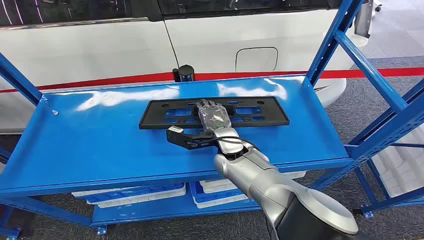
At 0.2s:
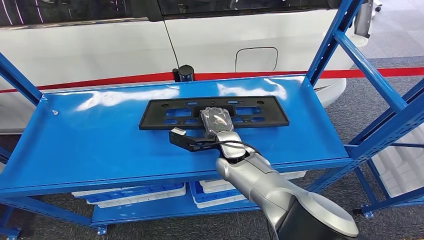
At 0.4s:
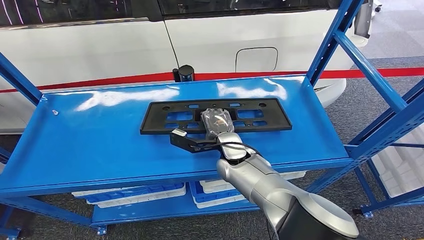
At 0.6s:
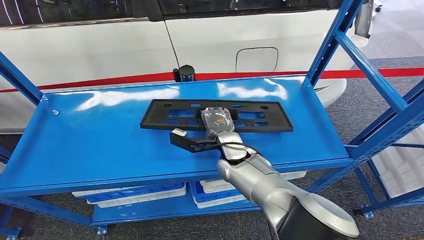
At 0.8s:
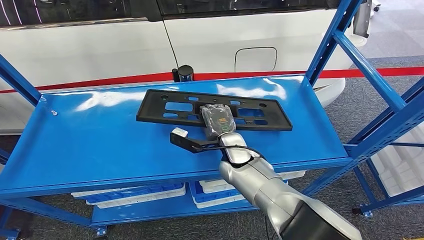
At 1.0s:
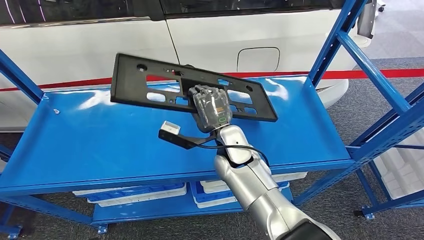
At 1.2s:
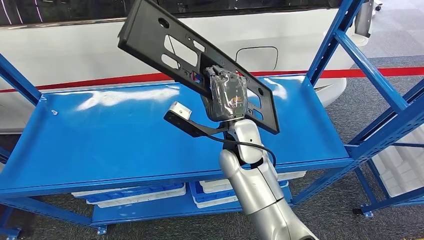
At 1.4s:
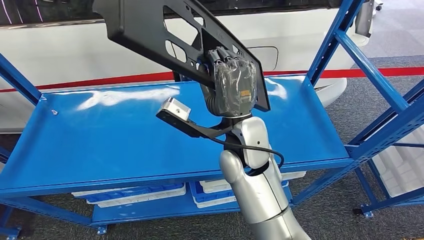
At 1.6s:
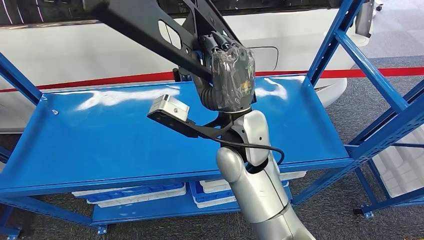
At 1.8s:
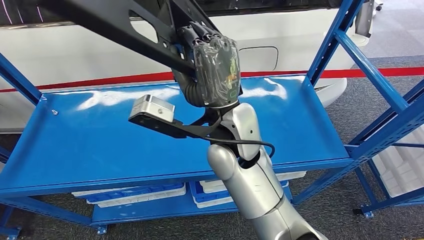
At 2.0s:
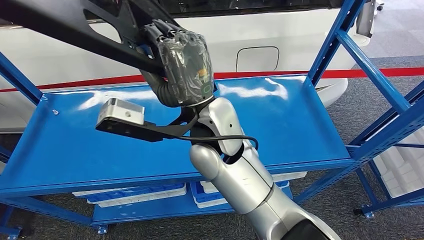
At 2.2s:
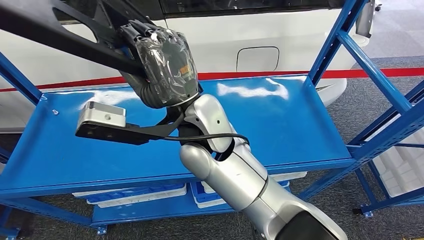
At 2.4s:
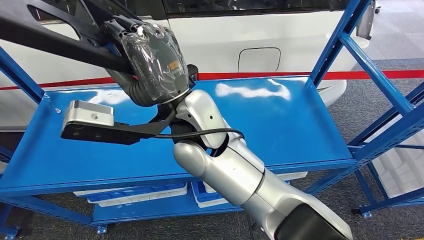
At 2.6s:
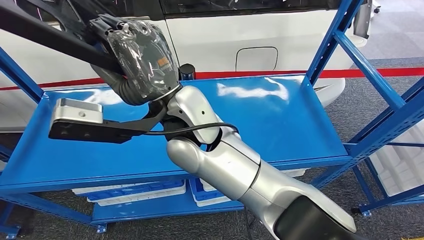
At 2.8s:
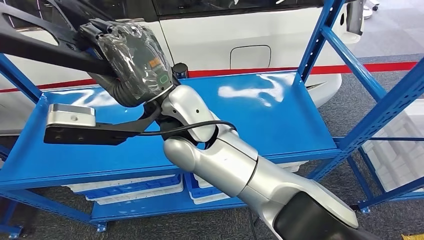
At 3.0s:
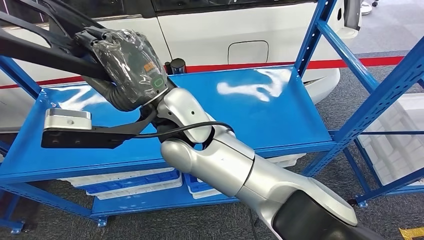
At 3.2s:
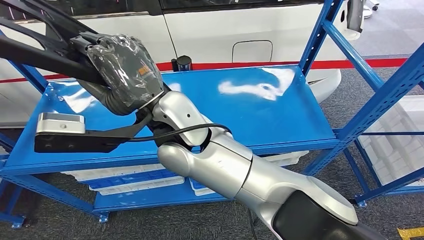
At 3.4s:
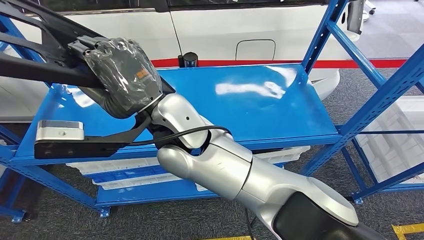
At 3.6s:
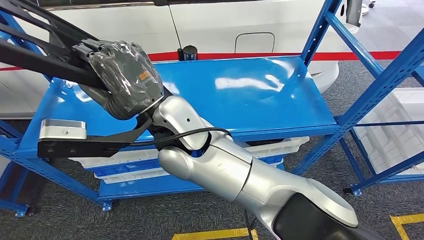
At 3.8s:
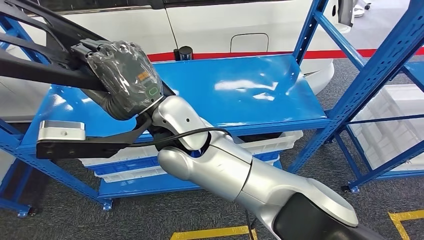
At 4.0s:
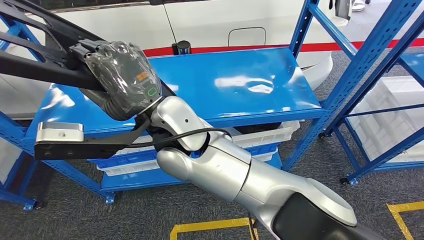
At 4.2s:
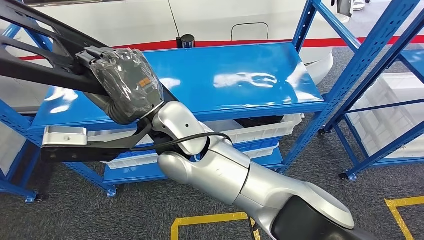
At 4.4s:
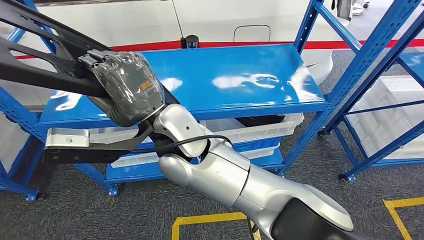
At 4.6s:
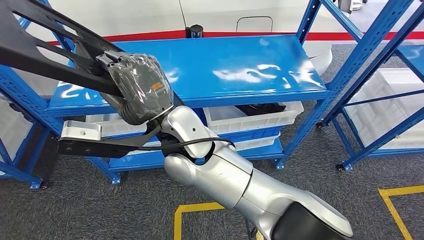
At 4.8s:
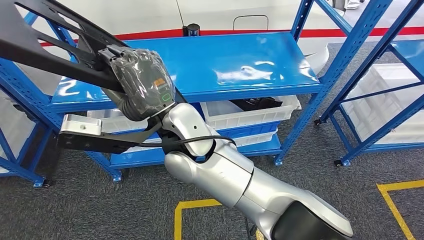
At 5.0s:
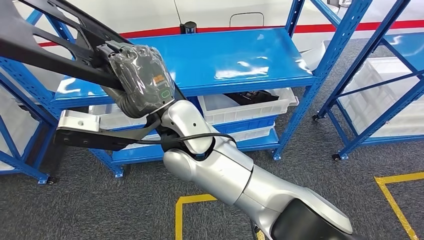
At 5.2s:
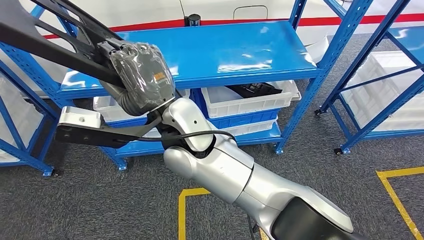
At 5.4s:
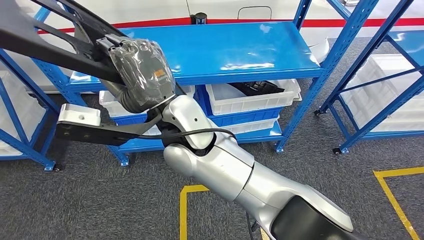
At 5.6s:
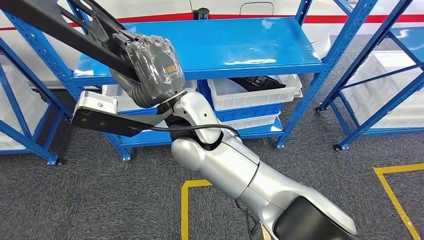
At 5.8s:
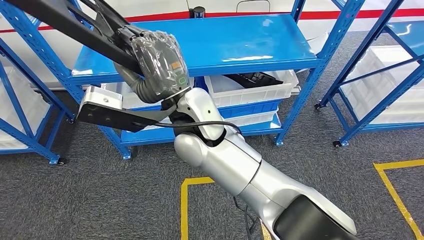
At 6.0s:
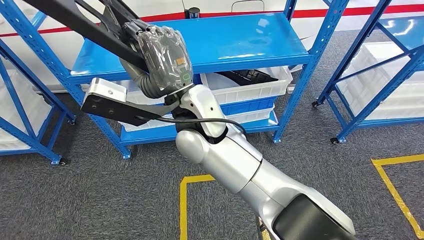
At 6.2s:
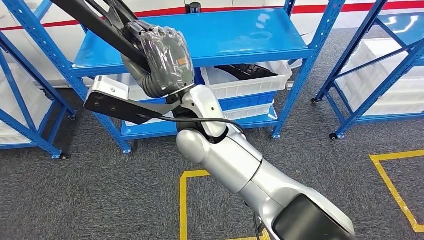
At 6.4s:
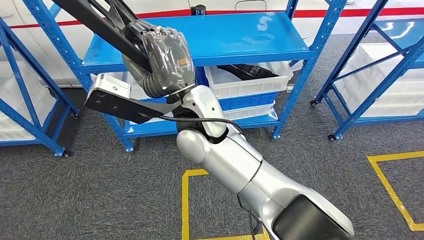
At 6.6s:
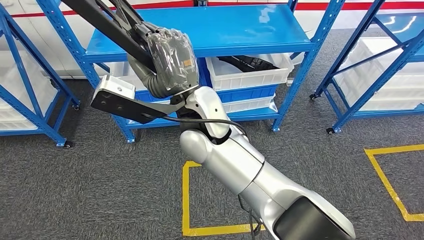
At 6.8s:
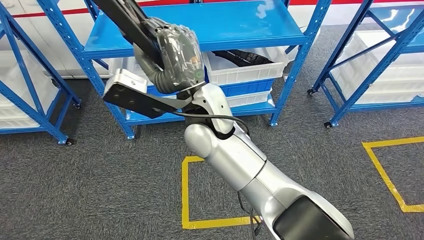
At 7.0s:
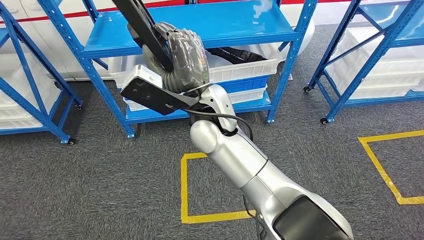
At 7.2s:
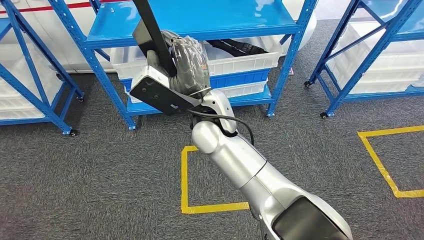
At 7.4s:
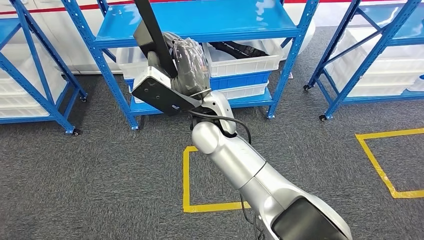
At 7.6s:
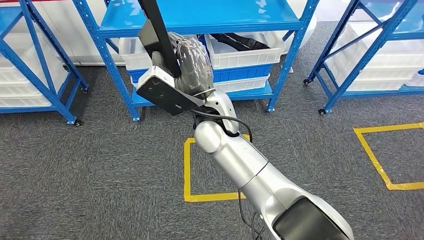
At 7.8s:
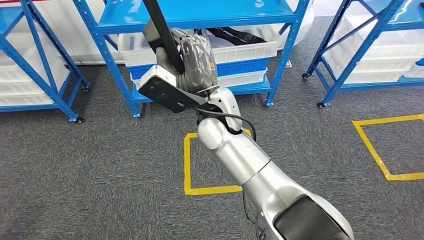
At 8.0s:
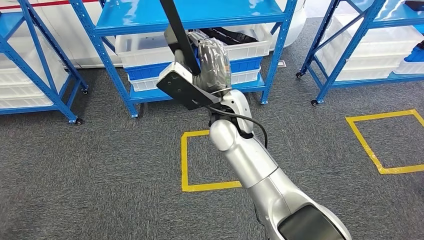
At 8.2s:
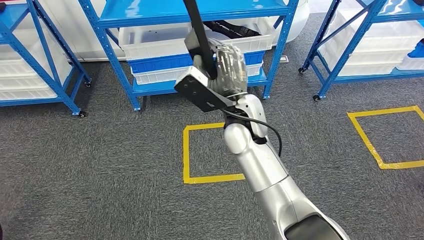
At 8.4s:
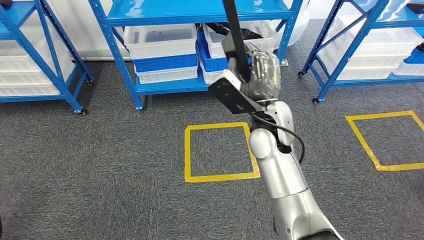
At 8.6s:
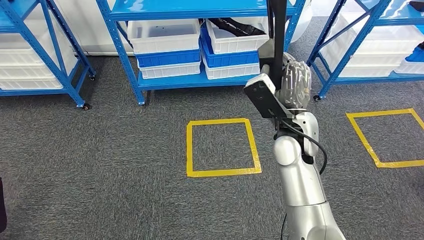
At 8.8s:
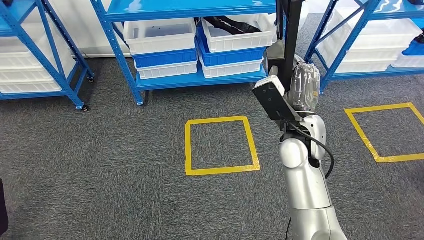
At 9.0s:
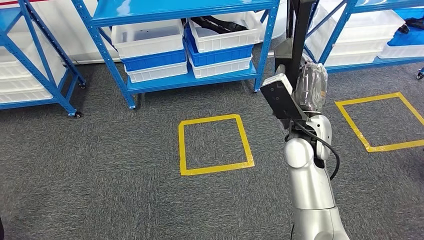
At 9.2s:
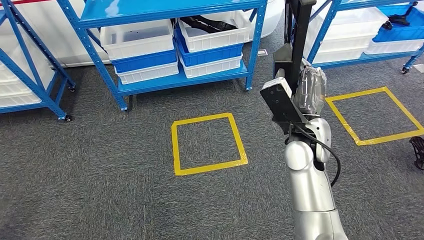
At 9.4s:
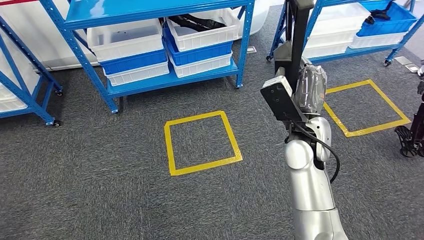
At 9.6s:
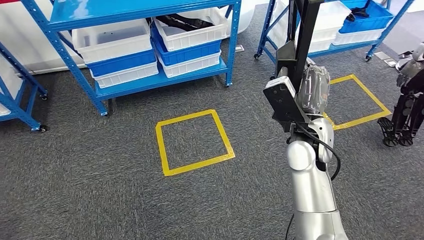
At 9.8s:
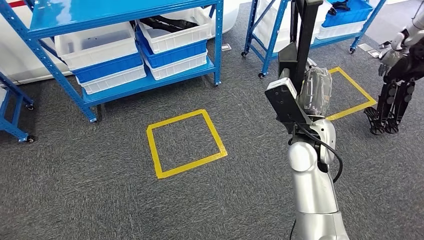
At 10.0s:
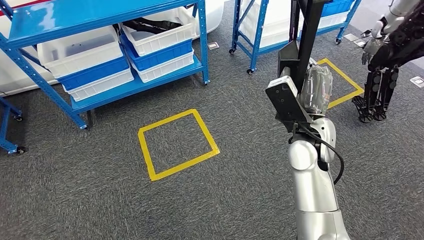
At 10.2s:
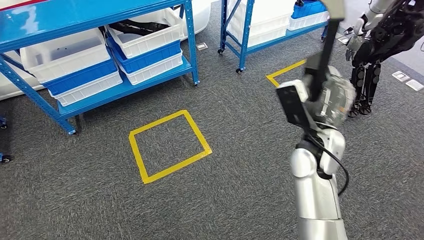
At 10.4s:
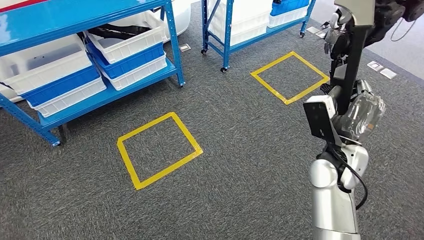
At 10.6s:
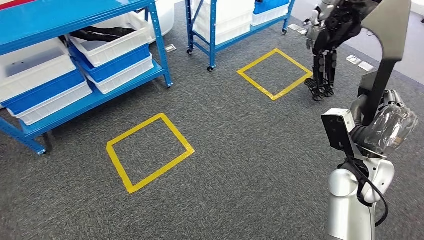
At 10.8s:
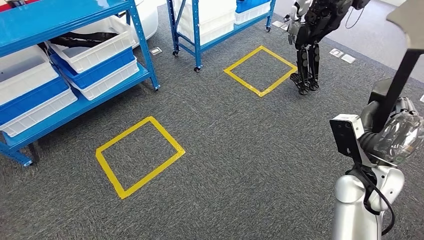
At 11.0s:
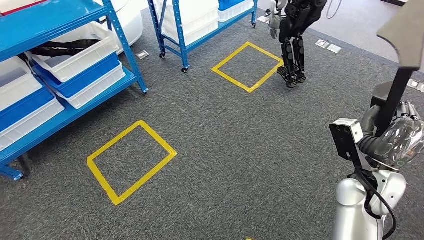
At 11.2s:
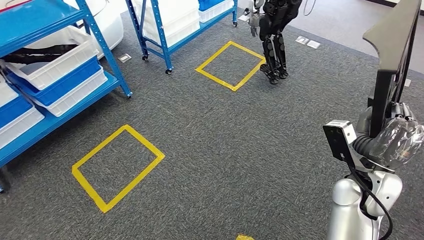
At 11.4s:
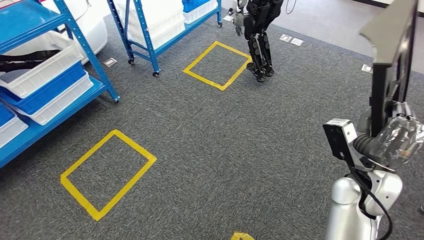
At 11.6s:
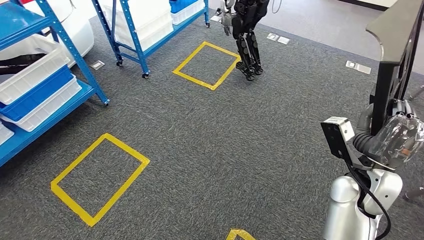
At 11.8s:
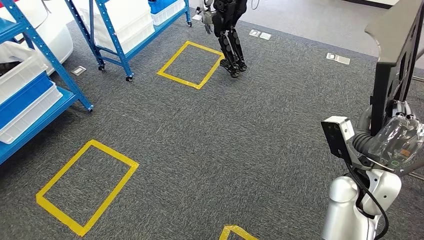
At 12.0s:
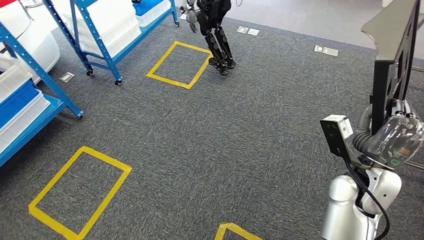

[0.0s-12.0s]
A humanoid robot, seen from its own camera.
Step, 0.0s to 3.4s: Pick up the large material from the shelf.

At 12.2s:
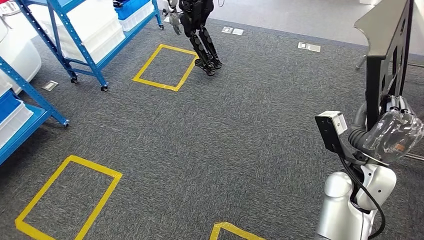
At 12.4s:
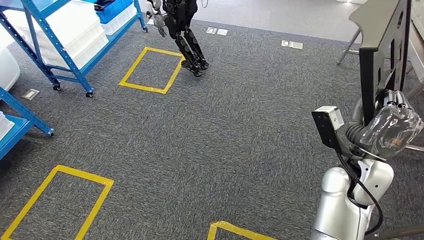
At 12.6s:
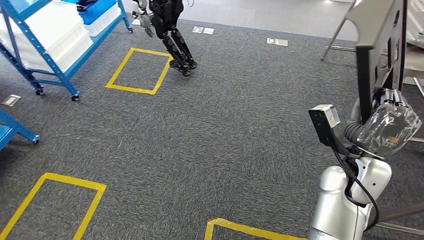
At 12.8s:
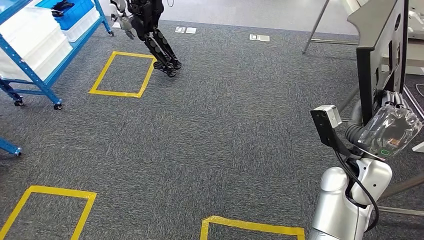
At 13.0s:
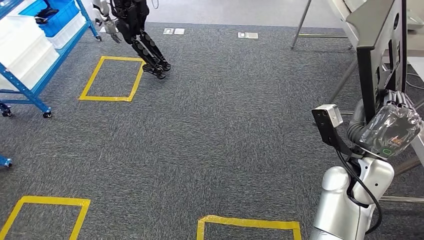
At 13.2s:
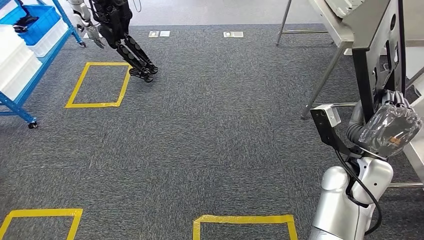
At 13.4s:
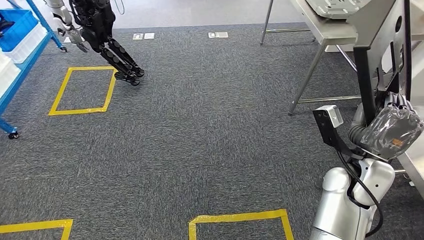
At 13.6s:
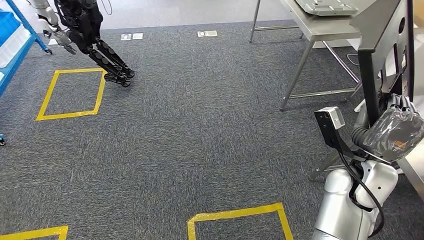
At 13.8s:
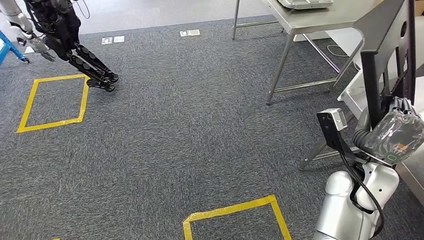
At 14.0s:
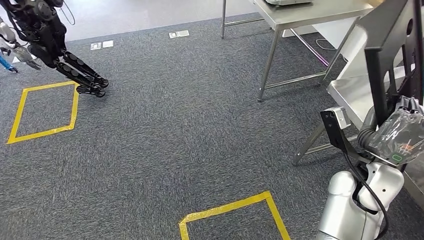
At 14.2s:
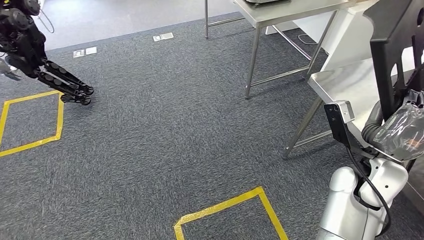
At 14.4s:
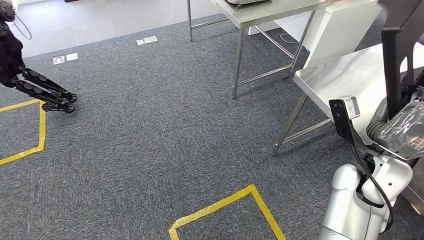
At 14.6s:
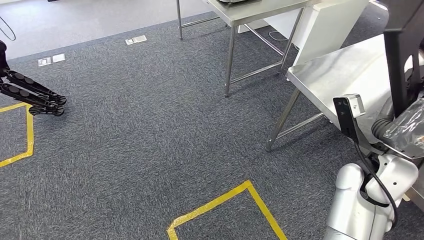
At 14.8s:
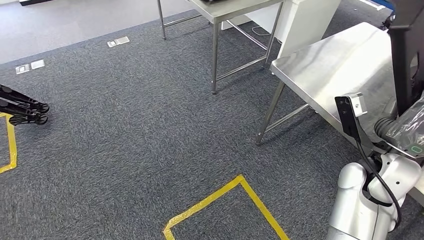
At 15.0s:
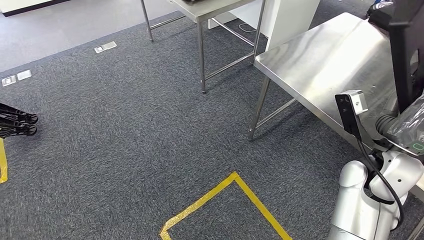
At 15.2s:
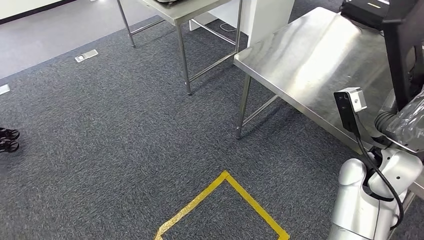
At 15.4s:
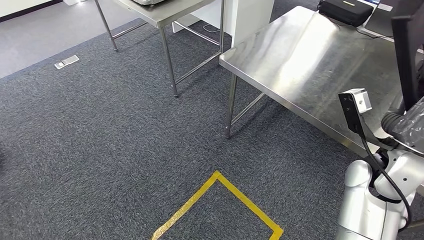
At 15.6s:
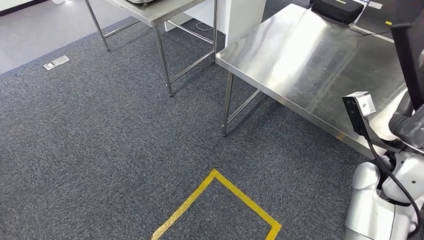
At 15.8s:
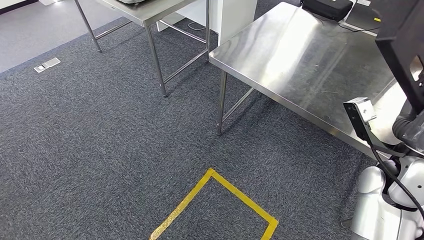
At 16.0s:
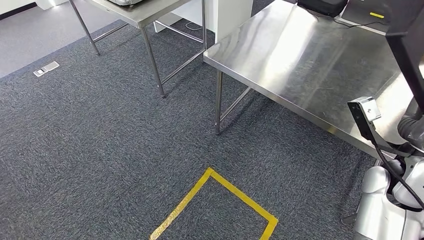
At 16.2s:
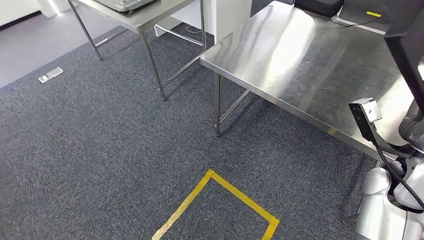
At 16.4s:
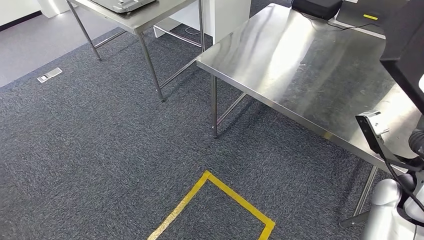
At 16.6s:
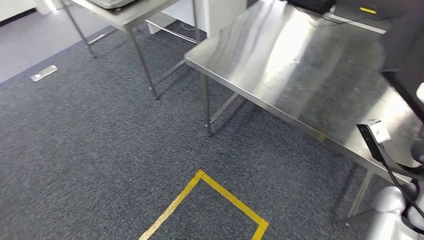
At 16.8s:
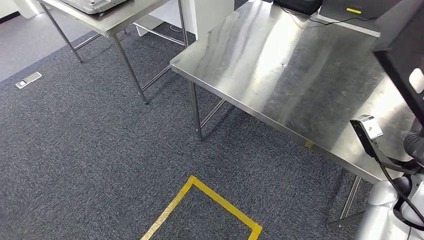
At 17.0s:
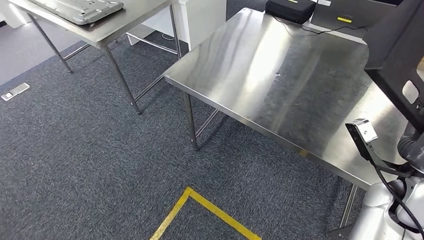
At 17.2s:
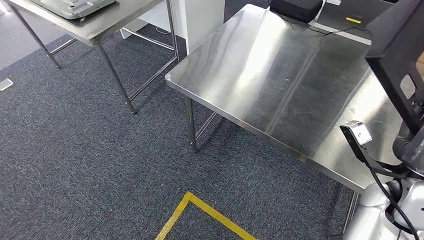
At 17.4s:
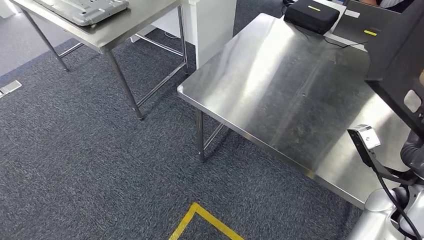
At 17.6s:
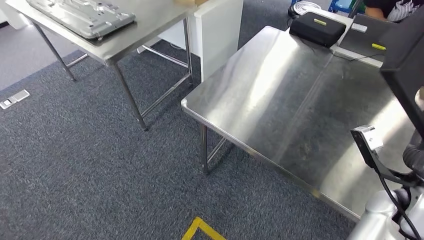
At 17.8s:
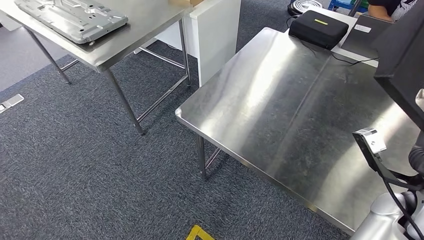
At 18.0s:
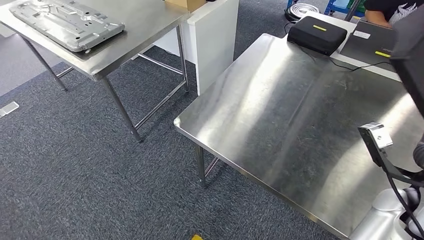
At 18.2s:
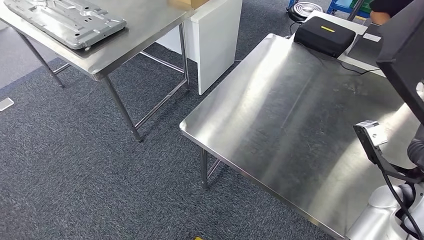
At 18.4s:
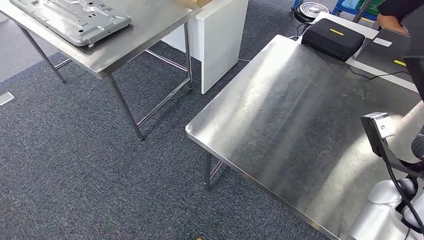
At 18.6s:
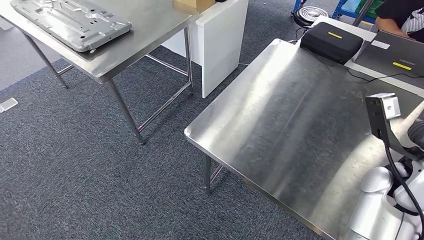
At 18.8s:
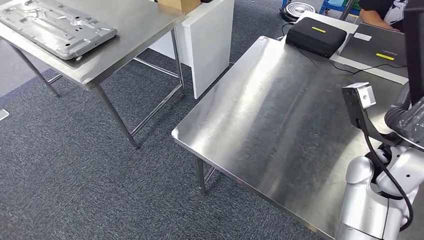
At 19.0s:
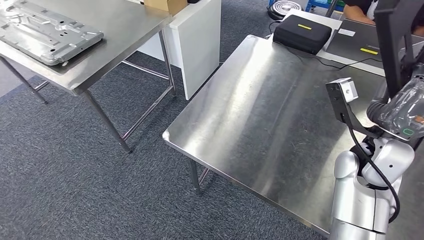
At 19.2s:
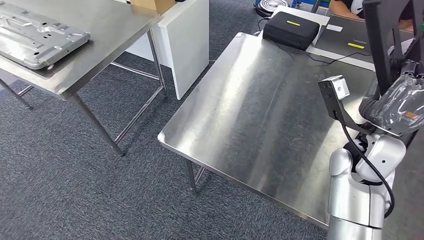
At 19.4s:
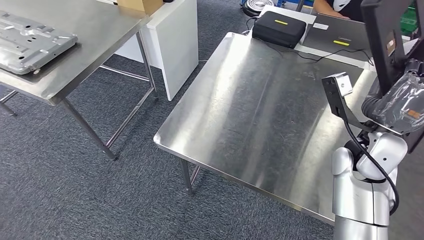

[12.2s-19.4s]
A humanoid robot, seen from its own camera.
Step, 12.2s to 17.6s: Move the large material to the workbench.
